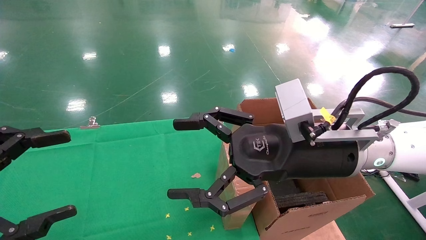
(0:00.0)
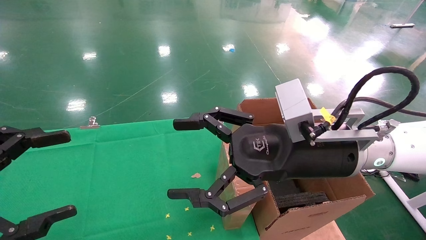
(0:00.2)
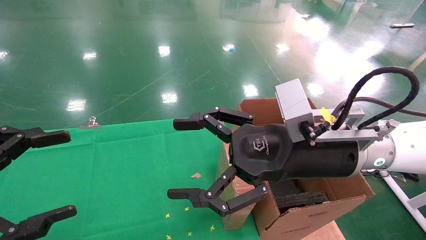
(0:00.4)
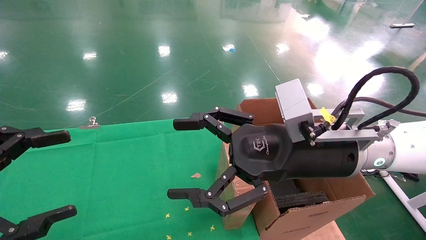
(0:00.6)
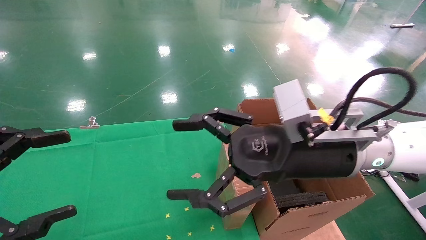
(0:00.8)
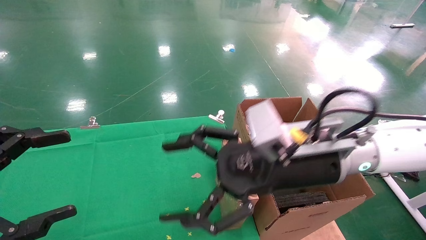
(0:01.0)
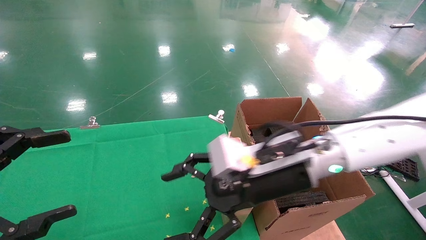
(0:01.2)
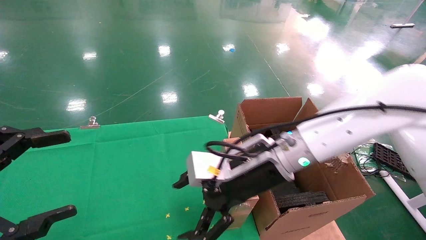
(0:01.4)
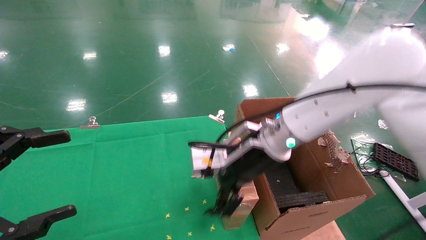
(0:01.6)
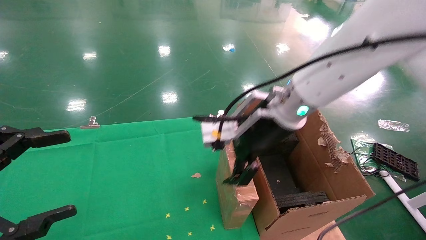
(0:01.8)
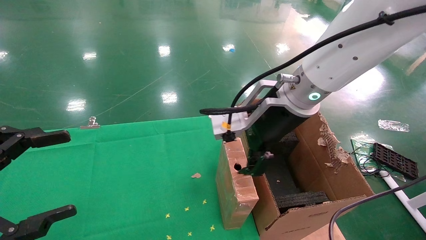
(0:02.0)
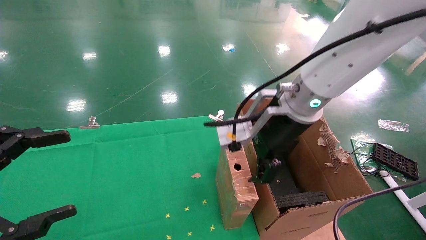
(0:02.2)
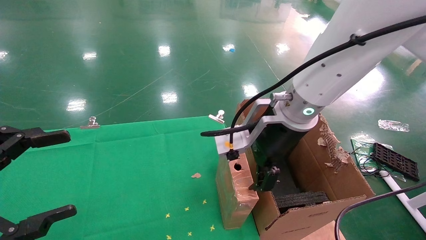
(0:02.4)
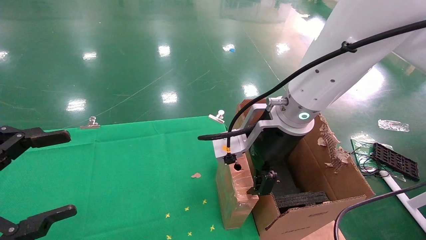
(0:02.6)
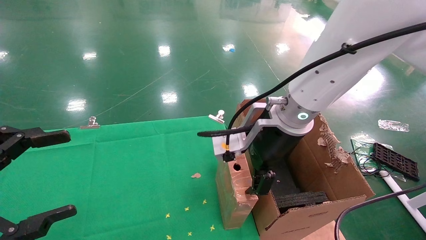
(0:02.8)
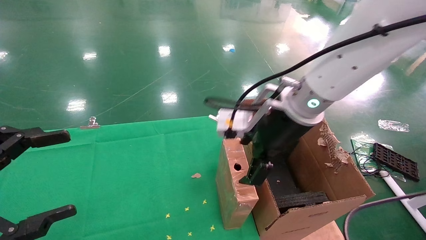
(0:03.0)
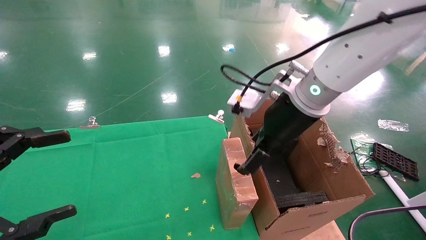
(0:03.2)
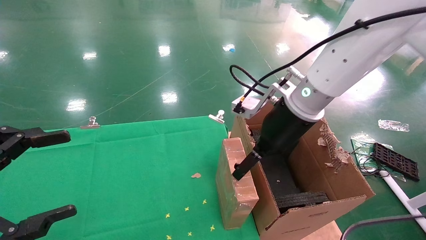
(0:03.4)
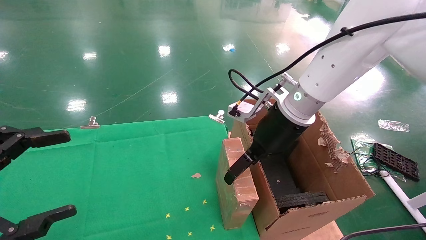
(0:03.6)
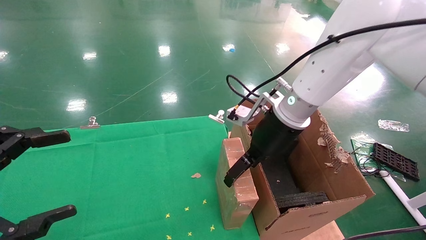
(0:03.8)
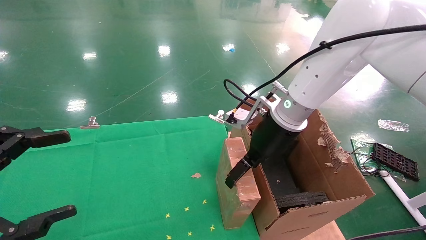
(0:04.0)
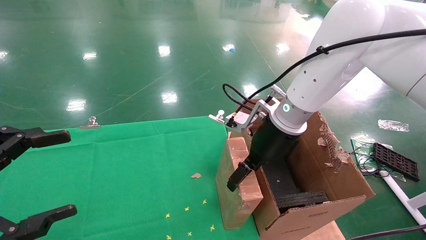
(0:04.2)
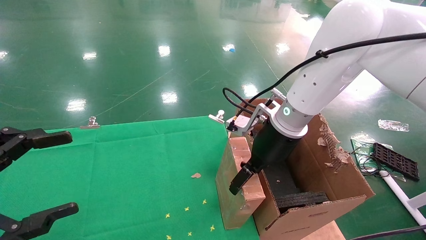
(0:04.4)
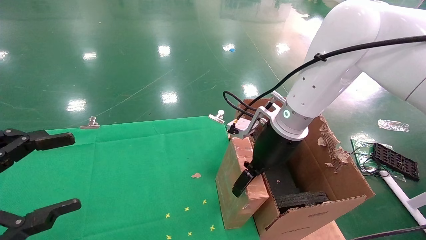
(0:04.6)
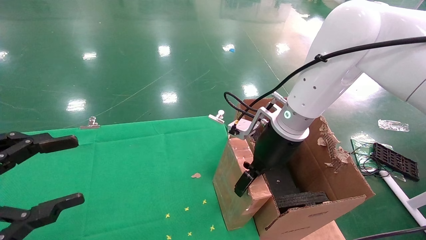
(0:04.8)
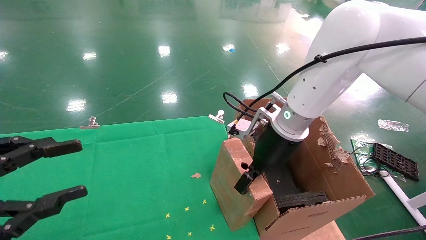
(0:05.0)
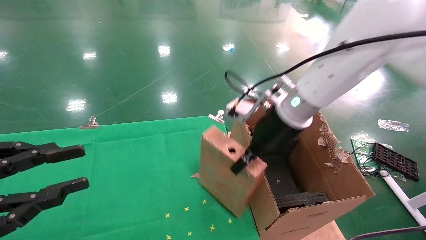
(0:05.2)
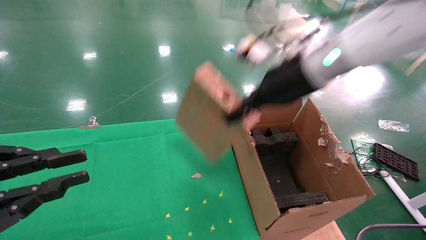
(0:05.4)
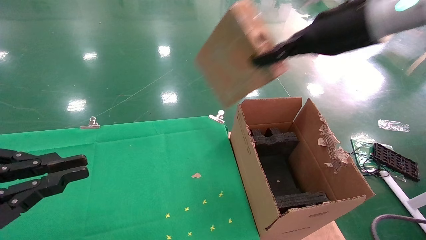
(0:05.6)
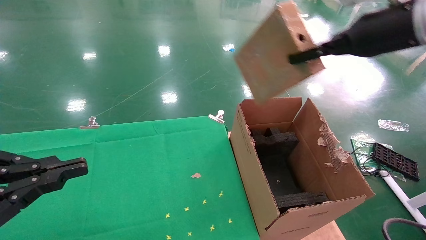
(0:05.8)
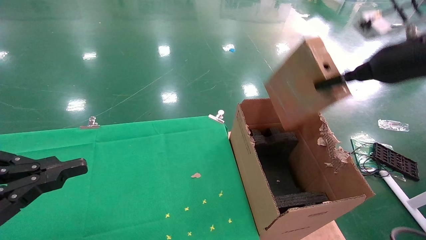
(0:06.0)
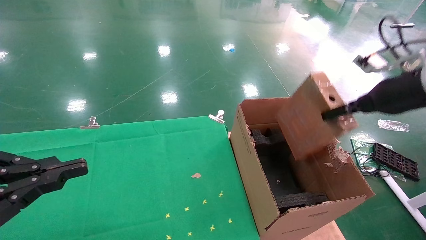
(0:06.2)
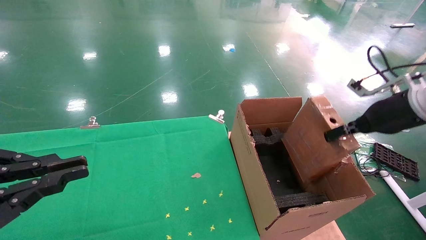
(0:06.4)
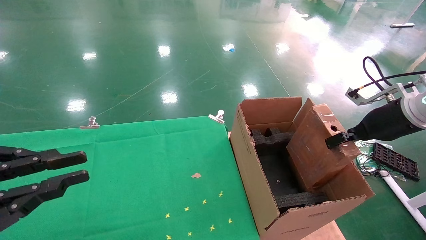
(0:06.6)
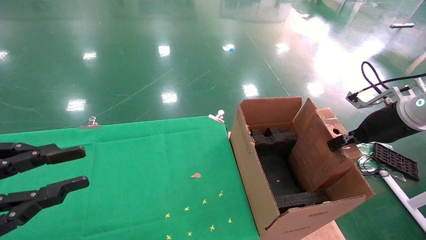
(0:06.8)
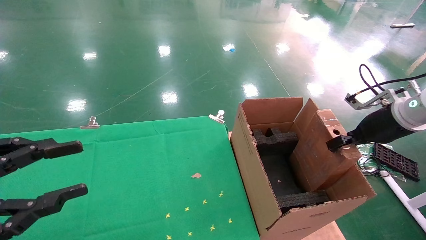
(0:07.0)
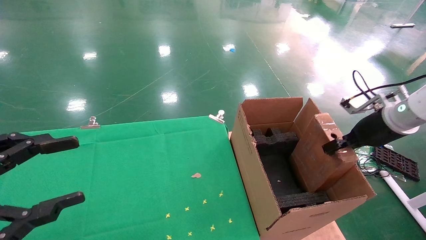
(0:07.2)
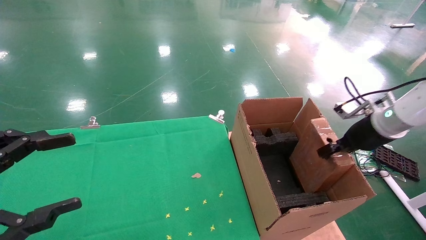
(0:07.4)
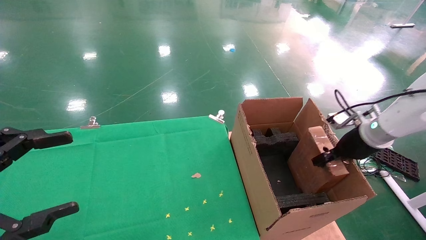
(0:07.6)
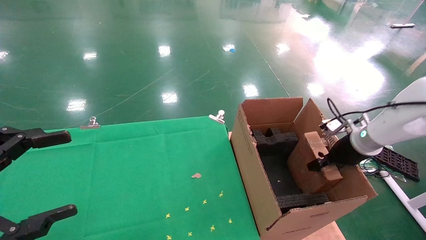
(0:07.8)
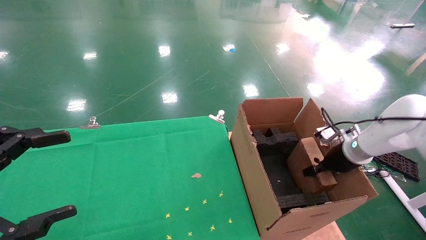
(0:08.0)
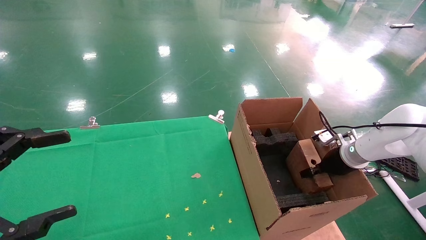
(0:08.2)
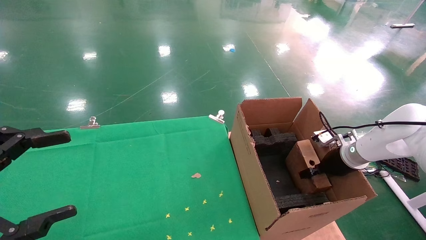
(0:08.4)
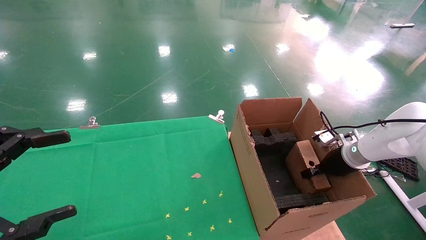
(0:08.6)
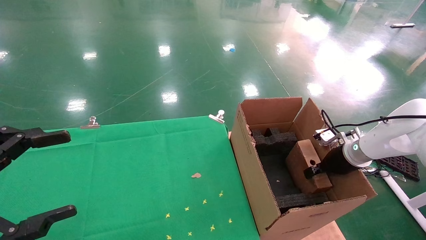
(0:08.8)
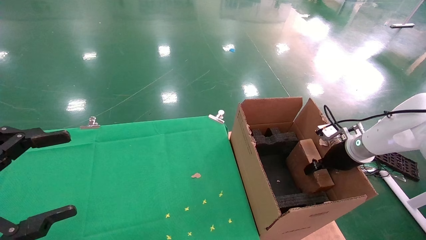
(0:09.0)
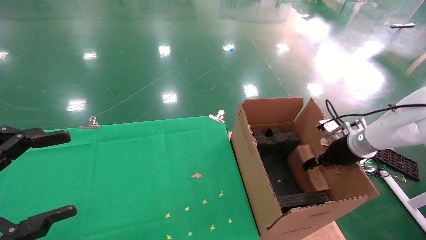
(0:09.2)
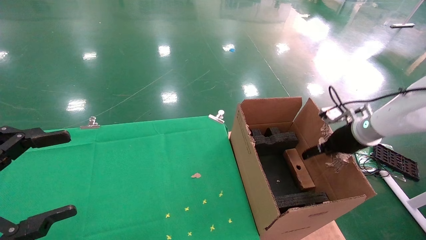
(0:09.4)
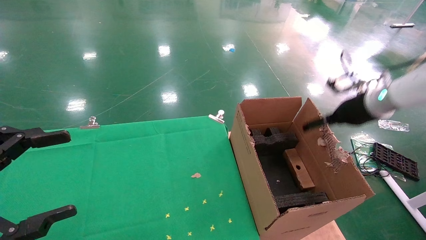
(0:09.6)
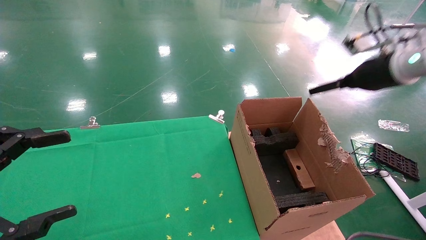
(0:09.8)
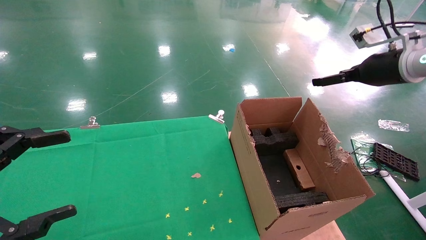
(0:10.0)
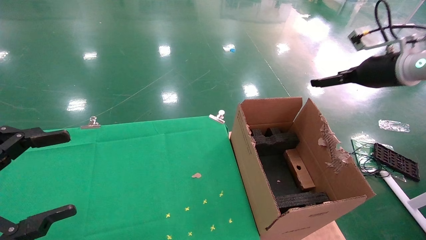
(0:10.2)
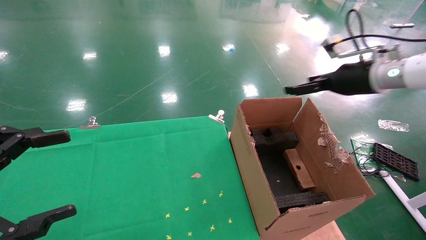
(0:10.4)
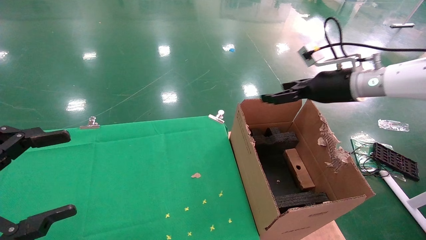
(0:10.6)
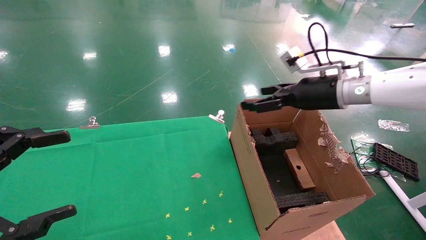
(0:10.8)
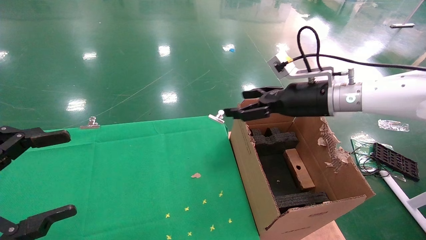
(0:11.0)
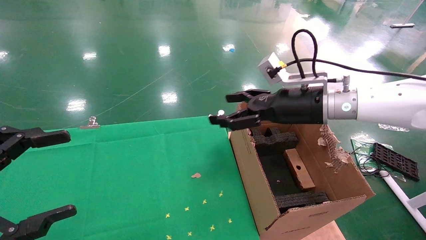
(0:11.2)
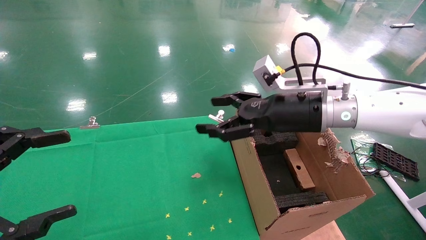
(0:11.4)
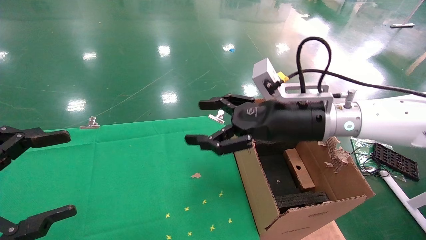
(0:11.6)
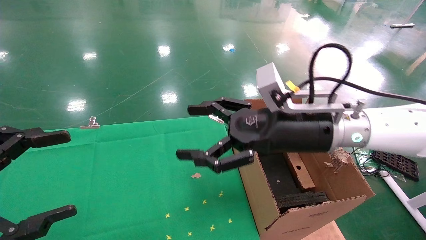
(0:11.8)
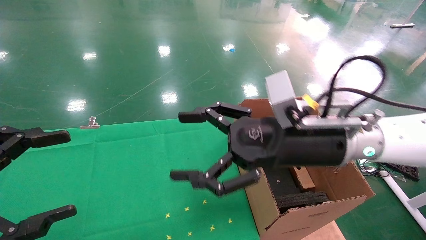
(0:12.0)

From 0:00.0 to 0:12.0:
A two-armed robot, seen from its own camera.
Task of the whole recording: using a robotic arm to pick up a cardboard box and palace it the carton.
Step, from 0:01.0 to 0:05.6: Pick up the mouse and the power cord paper box.
Step, from 0:05.8 to 0:09.6: Place the mouse and the power cord paper box into the container.
From 0:00.0 to 0:01.6: The right gripper moves forward and to the left, roughly 10 cm.
From 0:01.6 to 0:03.0: The right gripper changes place by about 5 cm.
From 0:03.0 to 0:04.4: The right gripper shifts some 5 cm downward.
From 0:04.4 to 0:06.0: The left gripper closes, while the right gripper heads to the right and upward, covering approximately 25 cm, and closes up.
From 0:06.0 to 0:07.6: The right gripper is displaced downward by approximately 20 cm. Meanwhile the left gripper opens.
From 0:07.6 to 0:09.0: The right gripper shifts by approximately 5 cm.
From 0:09.0 to 0:10.4: The right gripper goes some 20 cm upward, and opens.
From 0:10.4 to 0:12.0: The right gripper shifts about 25 cm to the left and backward.

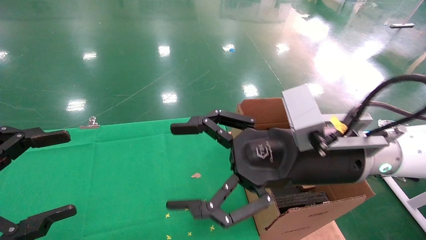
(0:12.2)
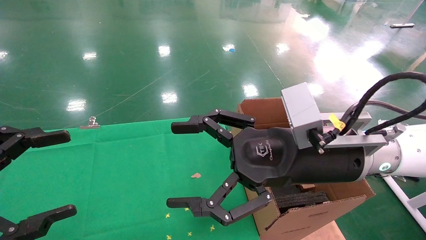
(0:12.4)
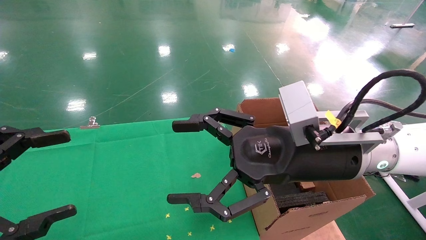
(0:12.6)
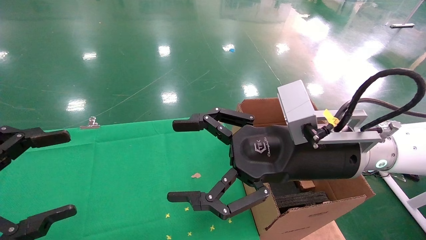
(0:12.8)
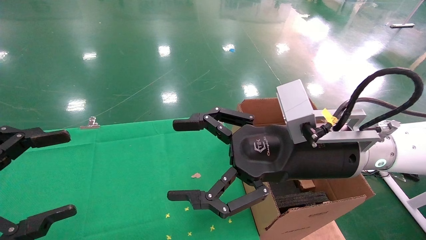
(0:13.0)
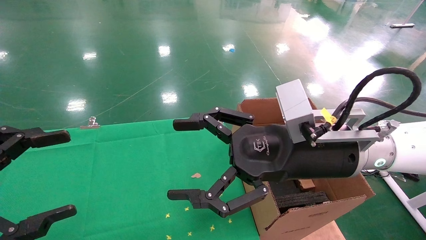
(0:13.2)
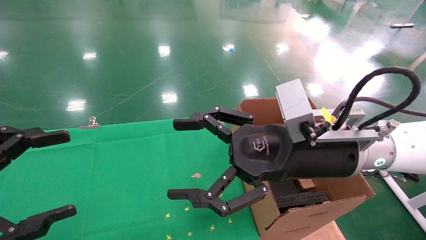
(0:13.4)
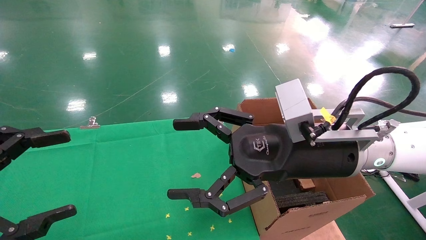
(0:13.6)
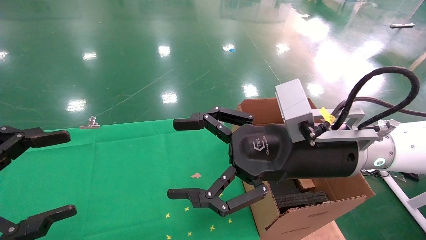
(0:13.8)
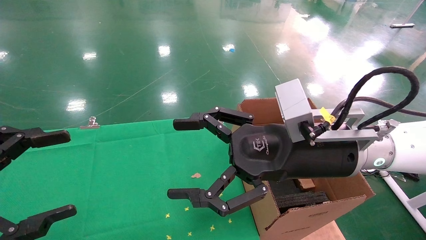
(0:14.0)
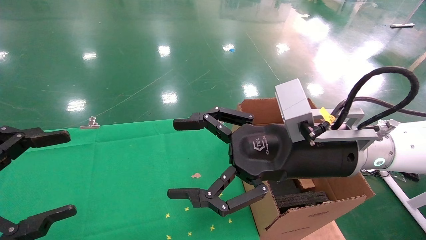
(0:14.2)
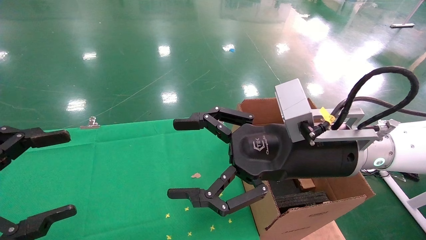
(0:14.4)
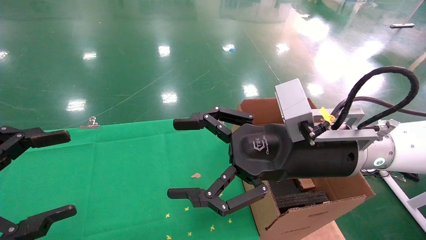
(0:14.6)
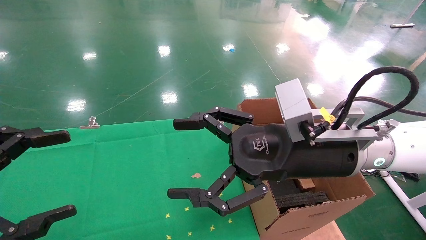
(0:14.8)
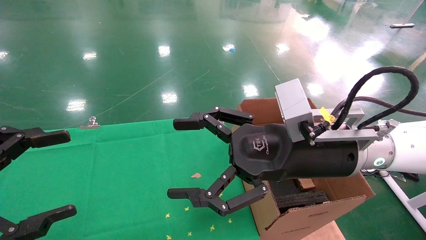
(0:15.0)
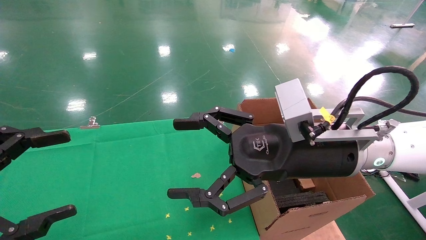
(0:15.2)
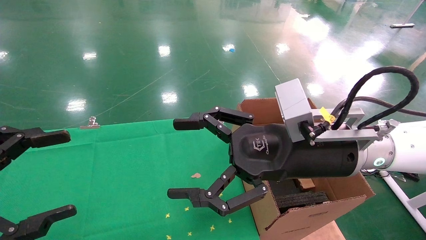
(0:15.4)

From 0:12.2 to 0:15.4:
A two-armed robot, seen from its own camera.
Task of the whole recording: using a robotic arm to pick up a cardboard box and palace it the carton.
From 0:12.2 to 0:15.4: The two grippers keep their place.
